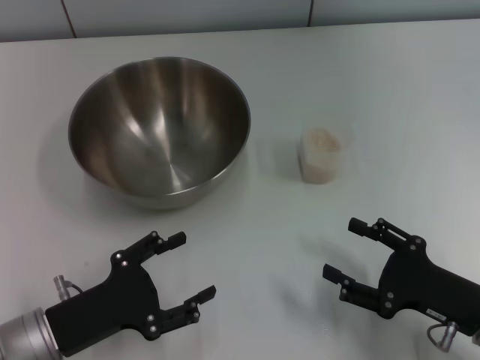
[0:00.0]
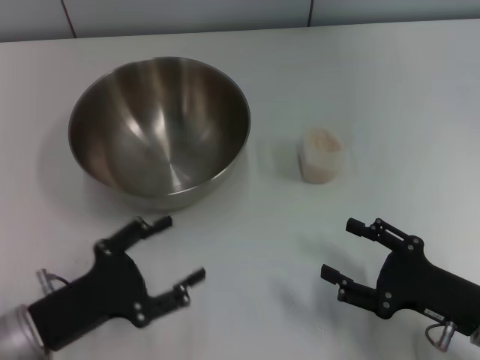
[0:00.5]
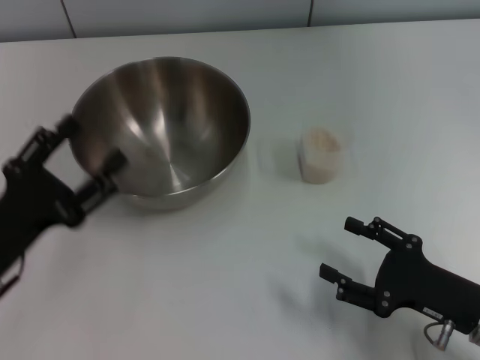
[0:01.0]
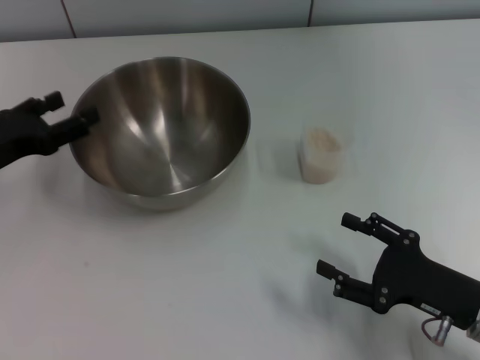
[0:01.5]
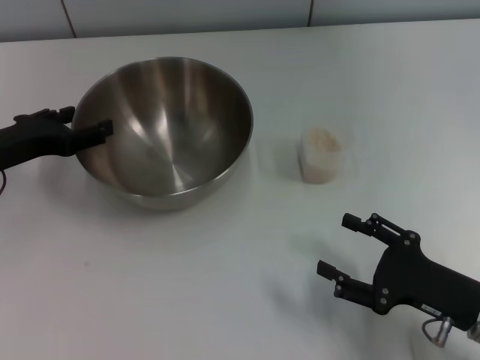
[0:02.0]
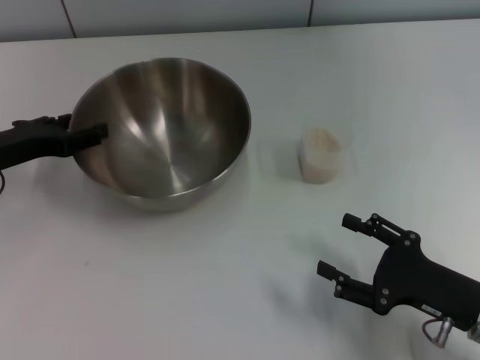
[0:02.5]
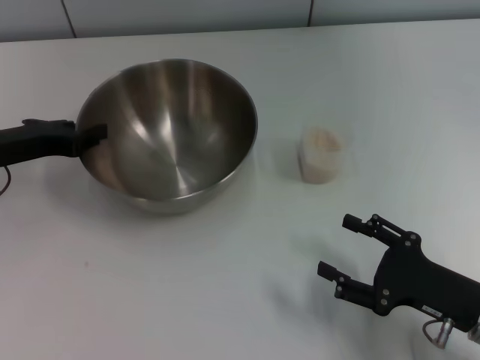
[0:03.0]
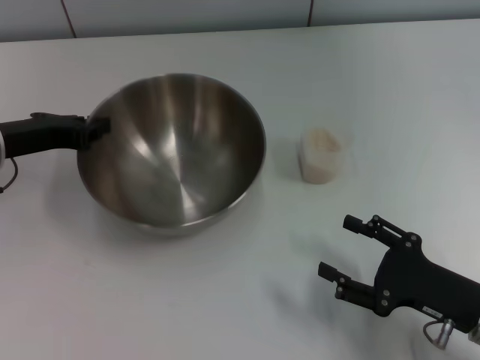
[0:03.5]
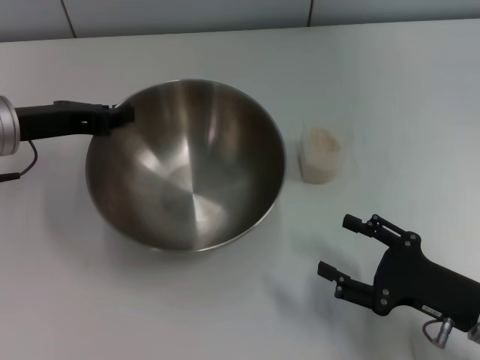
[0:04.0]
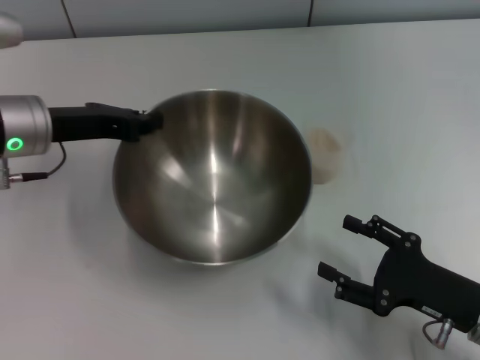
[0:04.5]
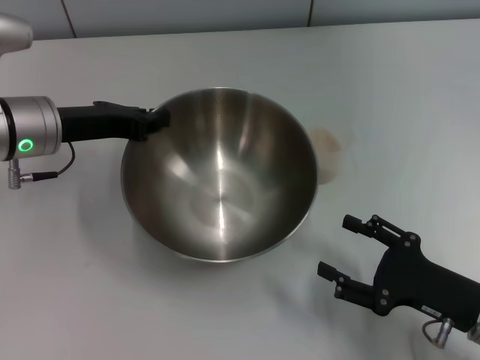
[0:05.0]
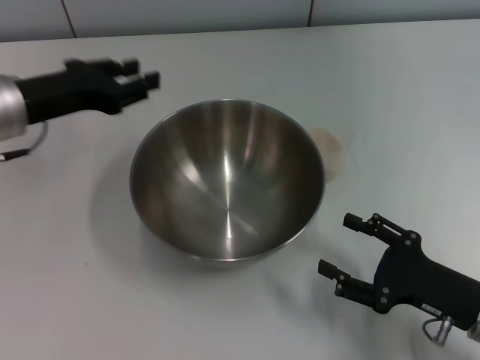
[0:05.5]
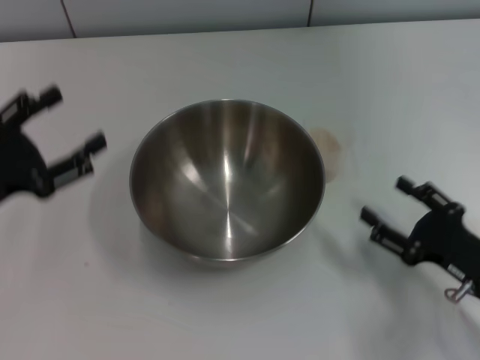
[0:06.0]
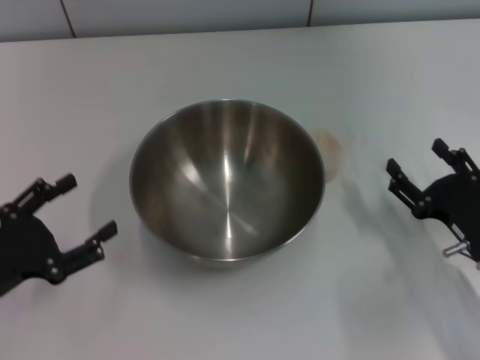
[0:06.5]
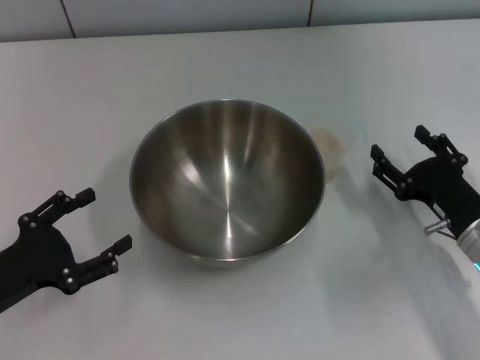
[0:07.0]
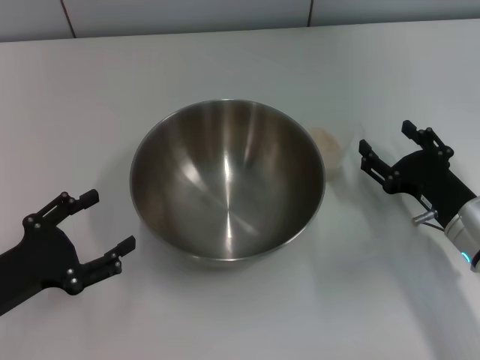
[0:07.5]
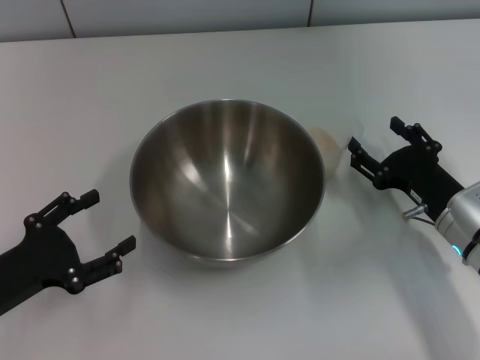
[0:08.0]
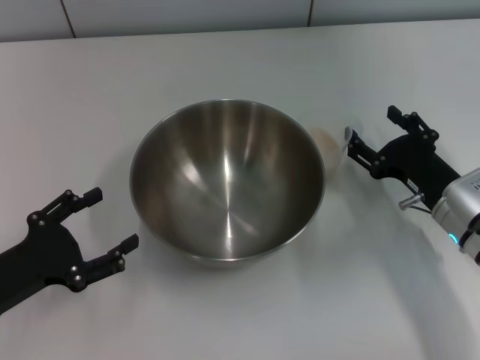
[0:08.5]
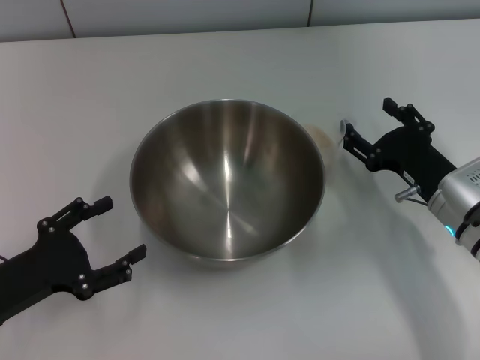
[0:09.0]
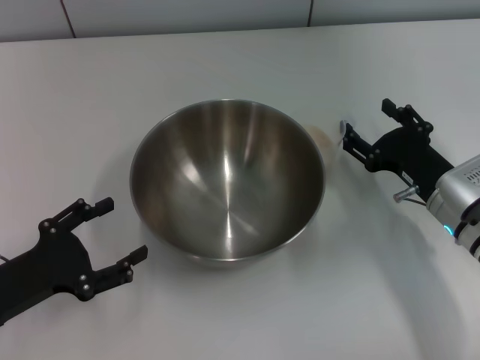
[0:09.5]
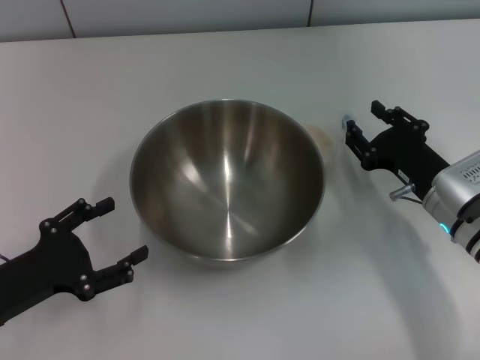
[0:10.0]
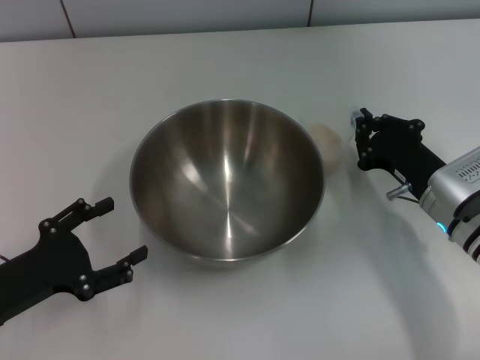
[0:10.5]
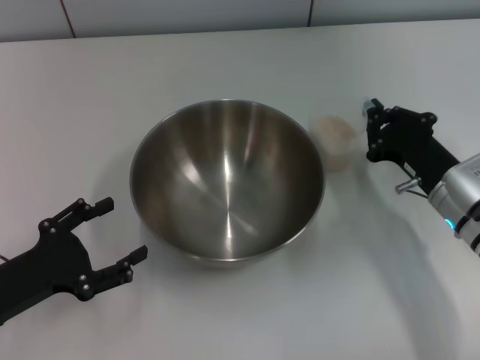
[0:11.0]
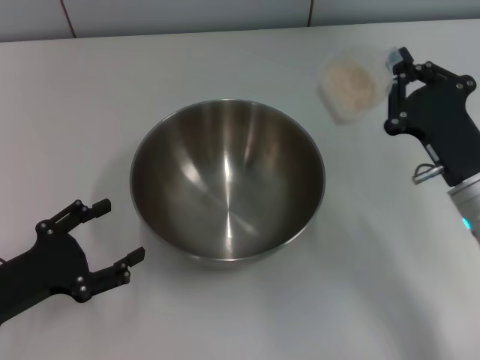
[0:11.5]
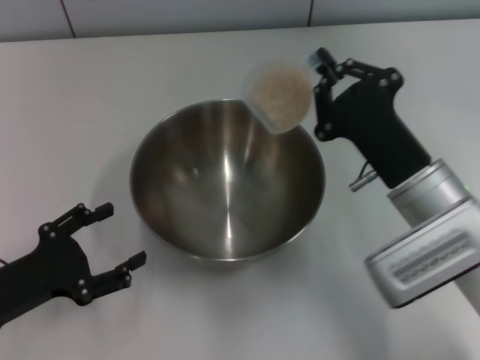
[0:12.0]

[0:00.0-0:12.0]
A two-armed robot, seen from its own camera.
Task of the whole recording: Place the bowl in the middle of the table with one hand and pour the rice from the grain cup into it with the other hand.
Step, 0:00.0 to 0:03.0: Pick up the bowl with the left gripper.
Step, 0:04.0 to 0:05.0: Place the bowl in the center of view with the left gripper.
Step, 0:06.0 to 0:11.0: Pick up the cup with rice in it with the right gripper.
0:00.0 to 0:02.0: The left gripper heads forward and upward, covering about 15 cm.
0:02.0 to 0:04.0: The left gripper shifts by roughly 5 cm, and closes its fingers.
0:04.0 to 0:06.0: The left gripper heads backward, covering some 10 cm, and opens up.
0:06.0 to 0:08.0: The left gripper goes roughly 10 cm downward and backward. The right gripper goes approximately 10 cm forward.
0:08.0 to 0:10.0: The grippers stay close to where they were, moving slightly.
0:10.0 to 0:12.0: The right gripper heads to the left and upward, covering approximately 10 cm, and closes its fingers.

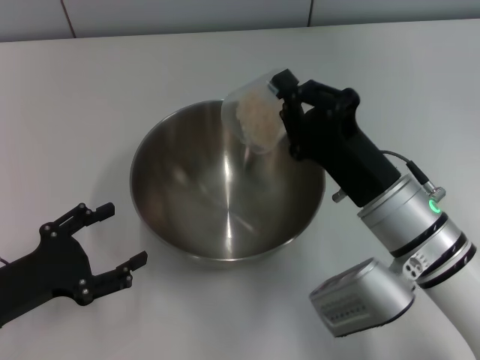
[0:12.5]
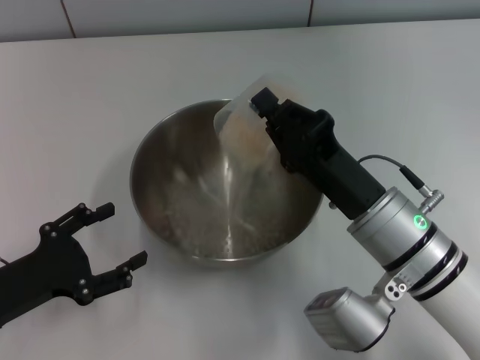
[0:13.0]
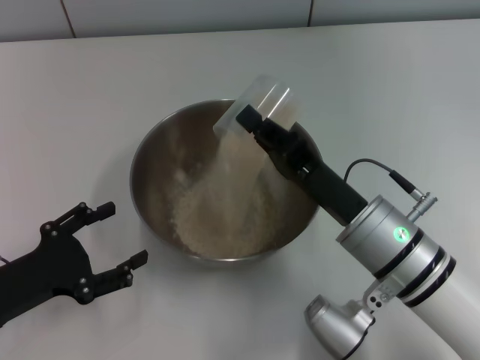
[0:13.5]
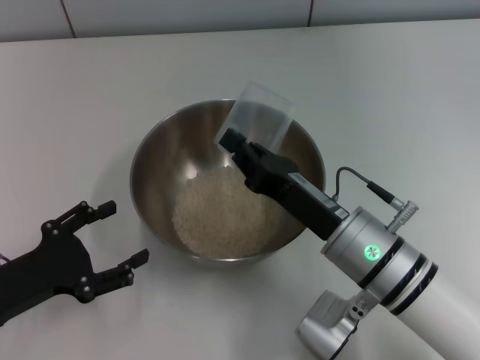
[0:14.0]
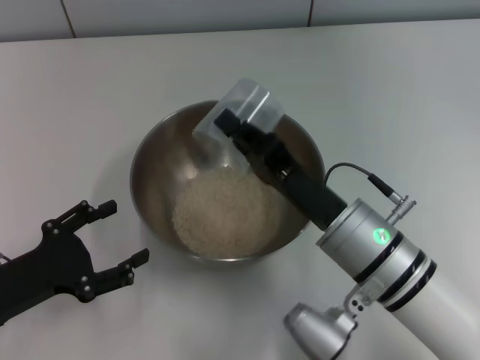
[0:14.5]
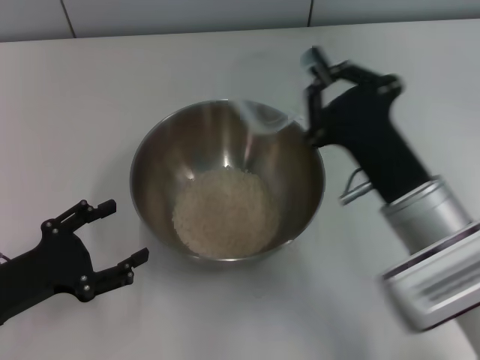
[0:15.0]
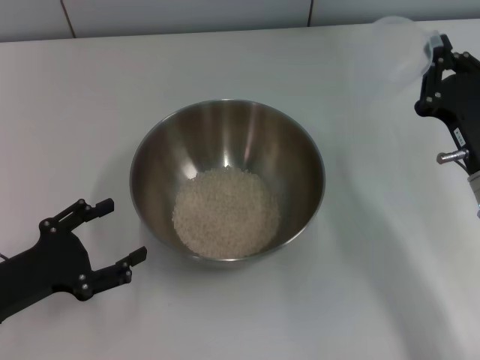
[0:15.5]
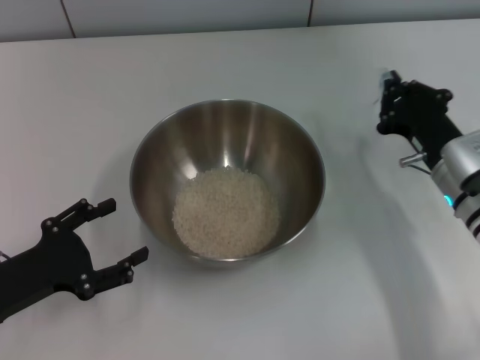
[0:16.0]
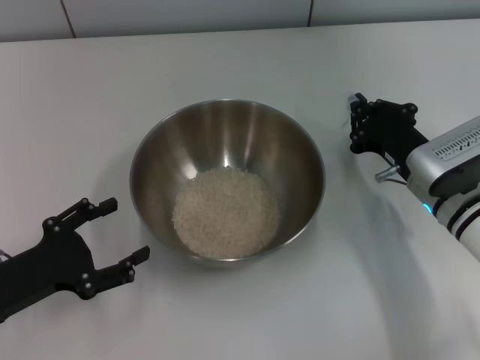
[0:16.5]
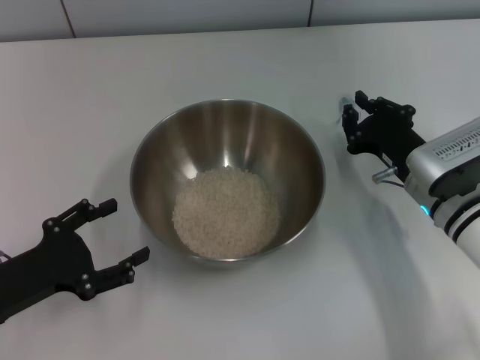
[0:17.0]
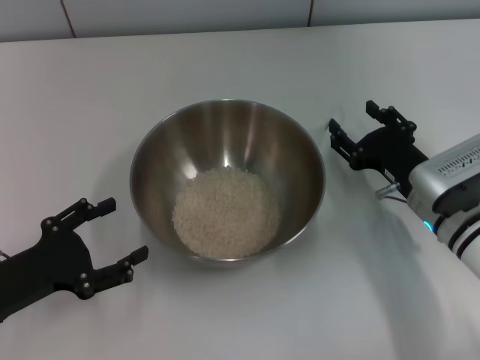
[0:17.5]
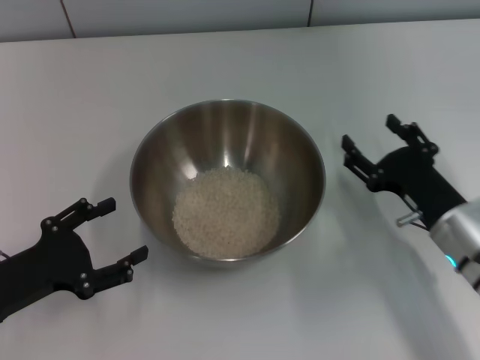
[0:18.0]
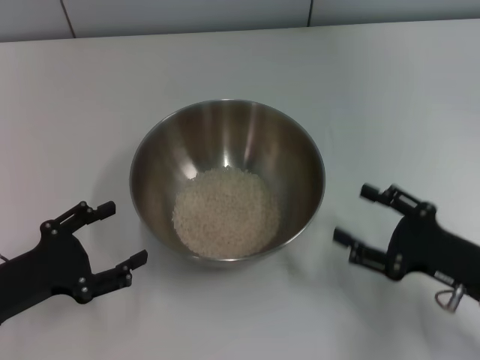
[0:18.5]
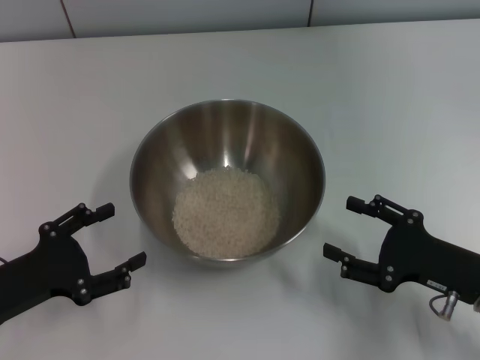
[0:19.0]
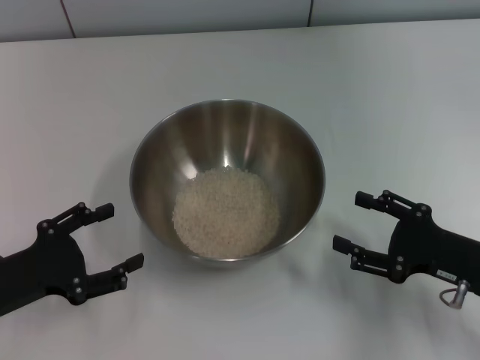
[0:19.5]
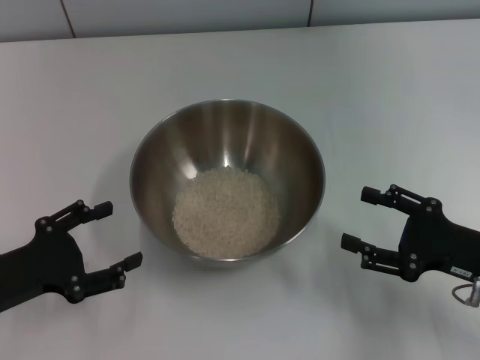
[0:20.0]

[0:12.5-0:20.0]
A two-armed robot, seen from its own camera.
Task of the whole recording: Place the bowl in the middle of the table with one hand and pour the rice from the grain cup into it with the other hand.
Step, 0:12.5 to 0:15.0: Pour the rice from the cup into the bowl with the right gripper.
Step, 0:15.5 to 0:17.5: Place the cup on the table with the right gripper.
0:14.5 to 0:16.5: The right gripper is displaced to the right and forward by approximately 15 cm.
0:16.5 to 0:18.0: The right gripper goes roughly 5 cm backward, and opens its fingers.
0:18.0 to 0:20.0: The right gripper heads to the right, covering approximately 5 cm.
